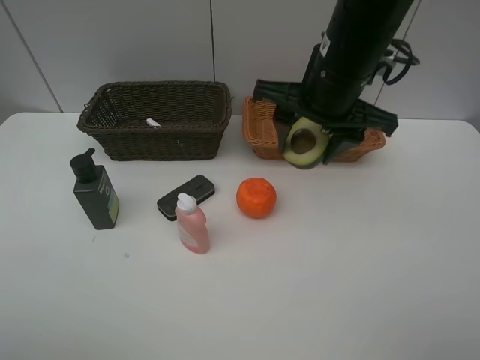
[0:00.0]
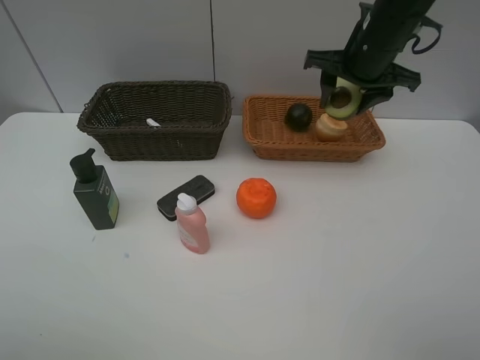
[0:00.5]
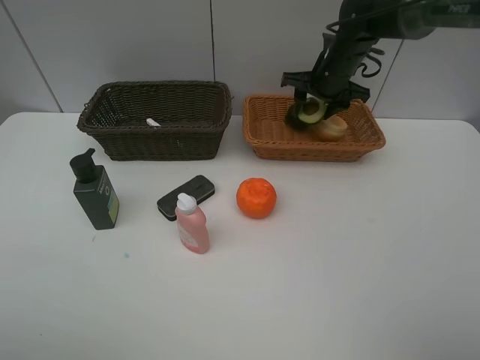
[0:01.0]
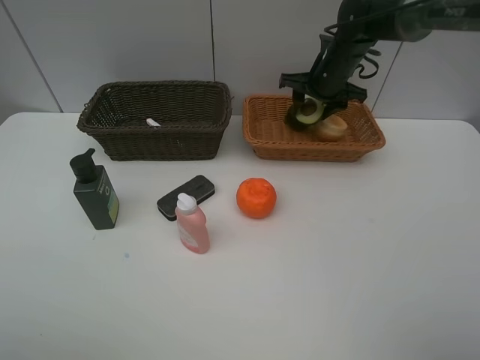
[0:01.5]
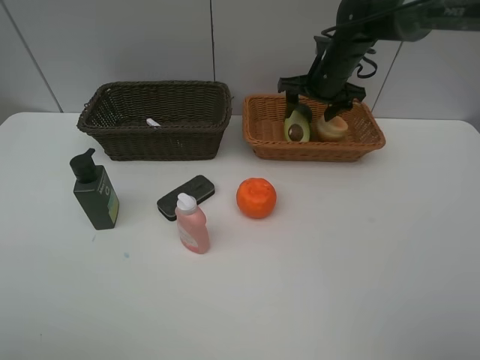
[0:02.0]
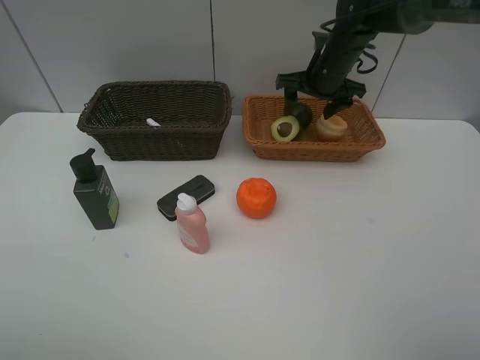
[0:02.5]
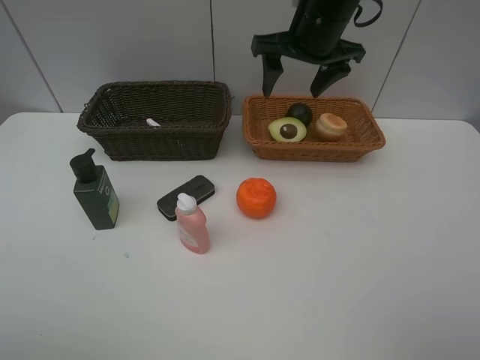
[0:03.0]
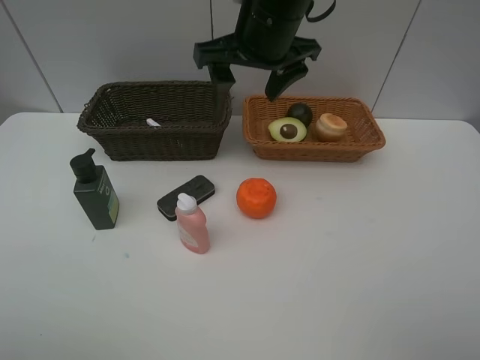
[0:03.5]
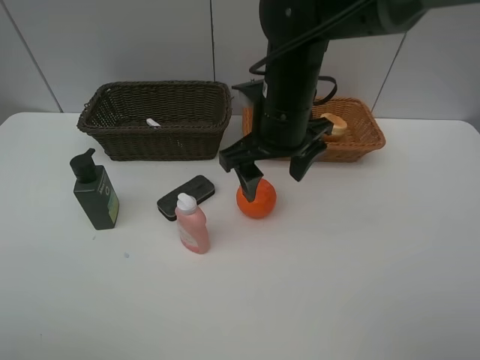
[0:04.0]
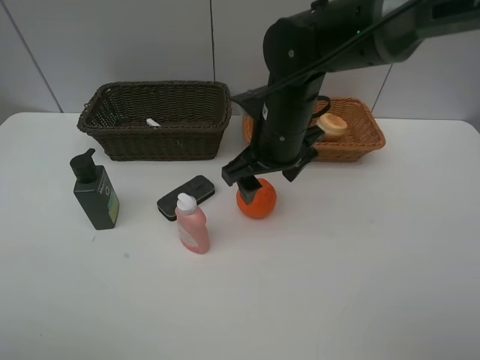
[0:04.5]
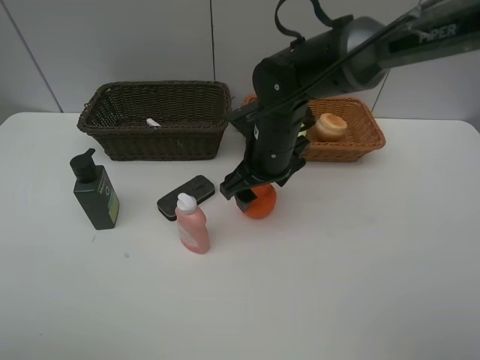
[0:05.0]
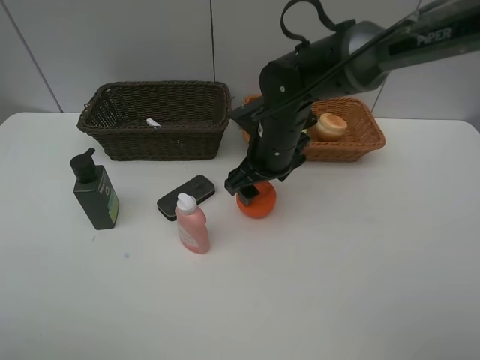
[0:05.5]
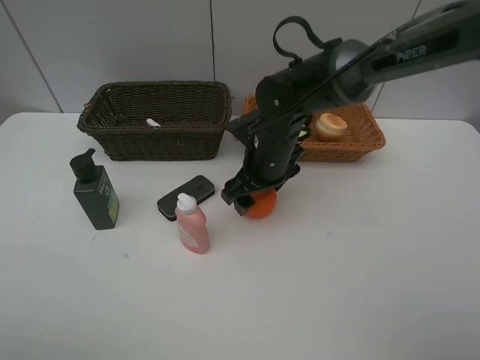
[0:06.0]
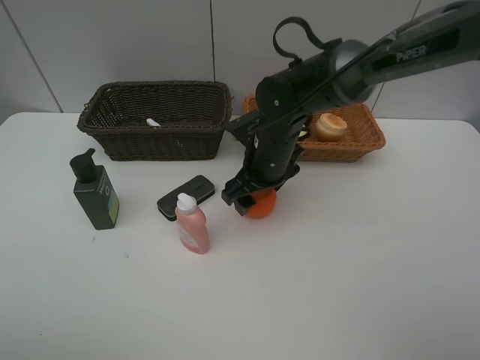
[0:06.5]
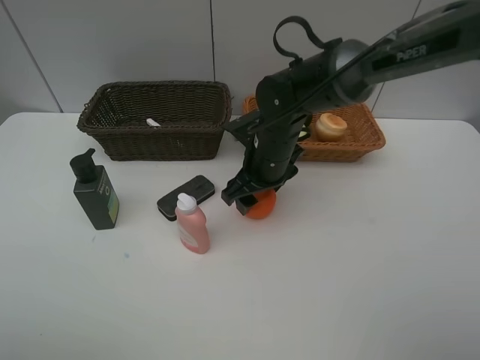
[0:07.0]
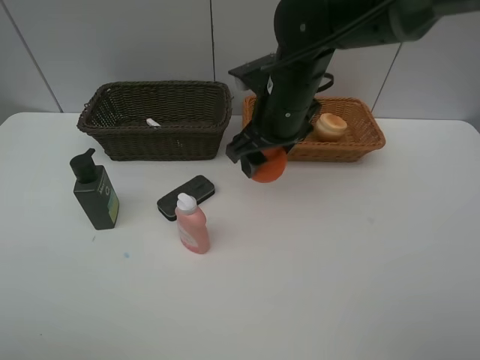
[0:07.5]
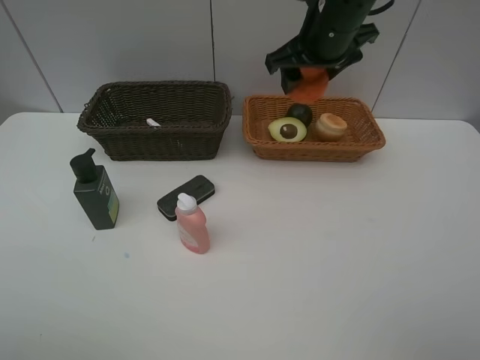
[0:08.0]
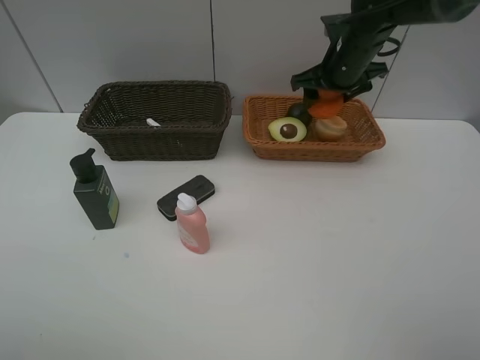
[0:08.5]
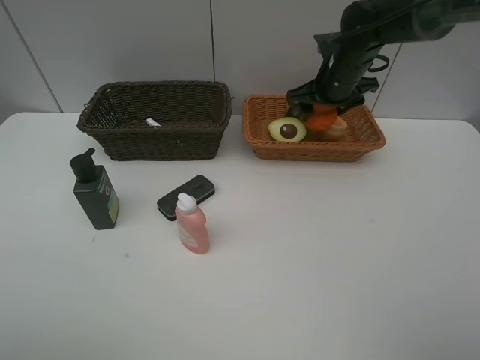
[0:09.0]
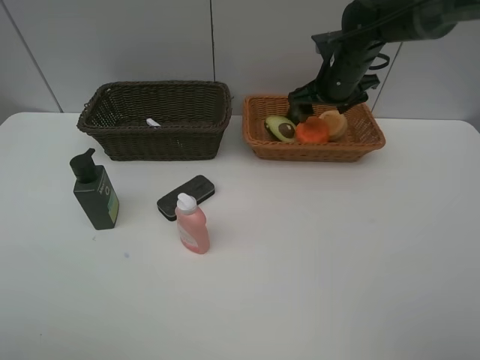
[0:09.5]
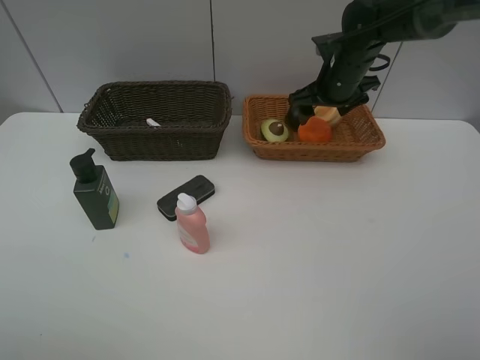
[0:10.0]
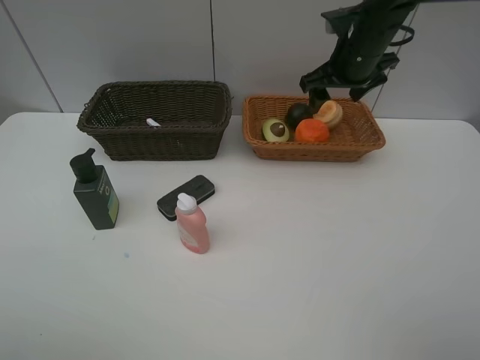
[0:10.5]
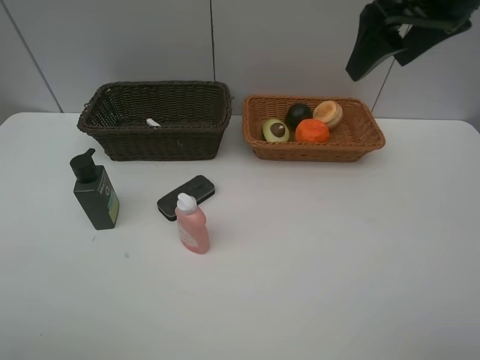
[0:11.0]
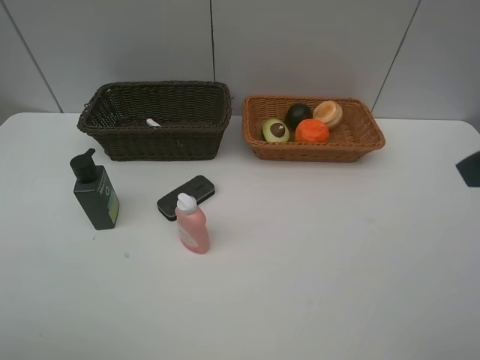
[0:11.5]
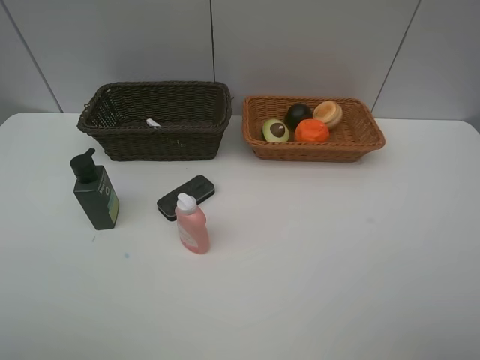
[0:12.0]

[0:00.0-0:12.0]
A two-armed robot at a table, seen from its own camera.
Task of the whole recording: Place multiple objects separately in different baskets.
Step, 0:00.0 to 0:02.5: Place the avocado in the light basket with right gripper.
Step, 0:03.0 to 0:07.0: Pick up the orange with right gripper.
Step, 0:07.5 to 0:09.5: Place the orange in the light basket with right gripper.
0:00.0 to 0:02.0: The right gripper shifts approximately 20 cm forward and downward.
0:02.0 to 0:04.0: The right gripper travels backward and to the left by about 20 cm.
0:04.0 to 0:06.0: The right gripper travels downward by approximately 10 cm.
0:06.0 to 0:08.0: The right gripper travels upward and to the right by about 20 cm.
0:08.0 to 0:10.0: The right gripper travels downward and forward by roughly 10 cm.
0:10.0 to 0:12.0: The right gripper heads backward, covering about 40 cm.

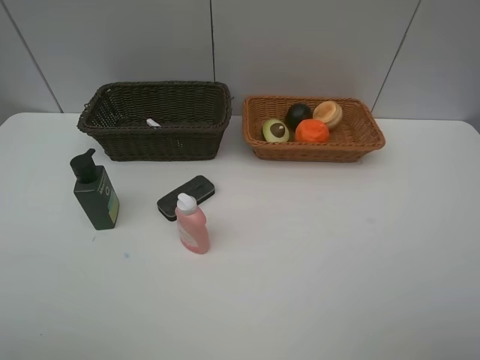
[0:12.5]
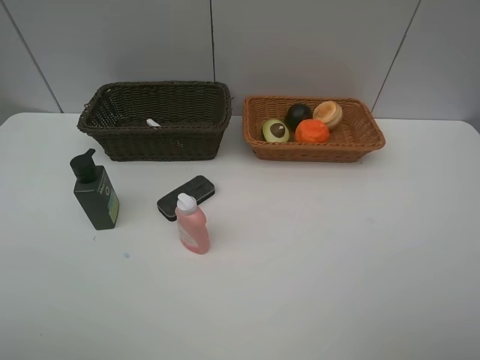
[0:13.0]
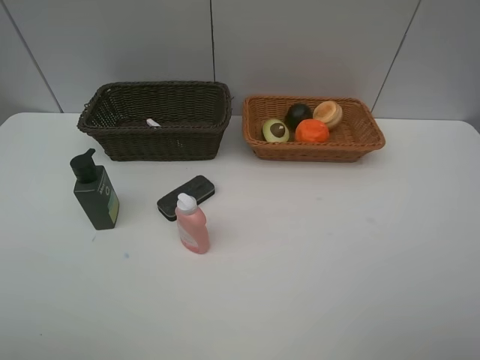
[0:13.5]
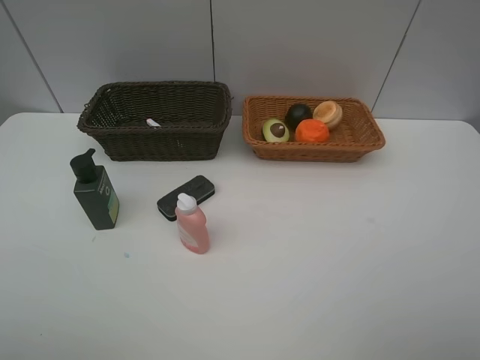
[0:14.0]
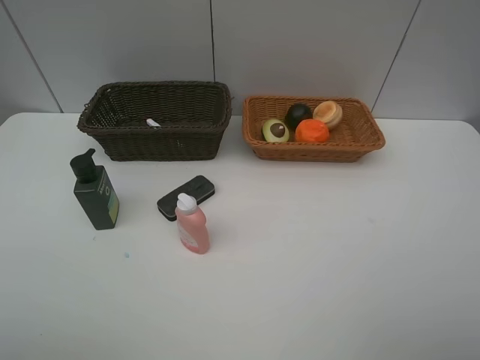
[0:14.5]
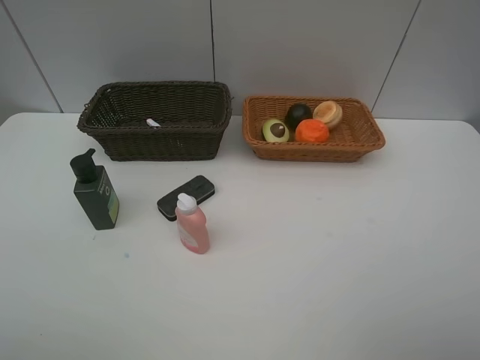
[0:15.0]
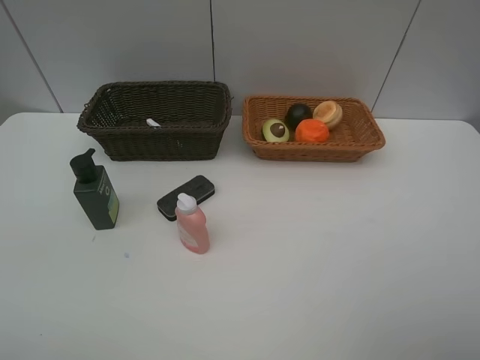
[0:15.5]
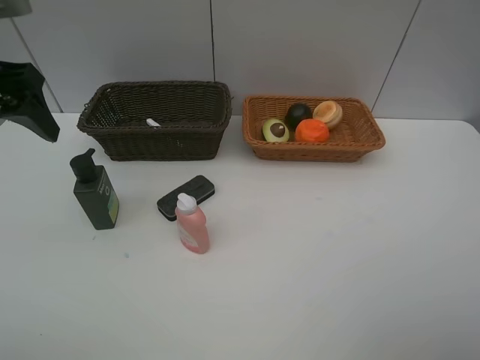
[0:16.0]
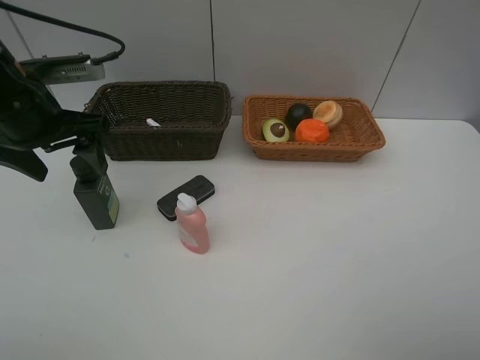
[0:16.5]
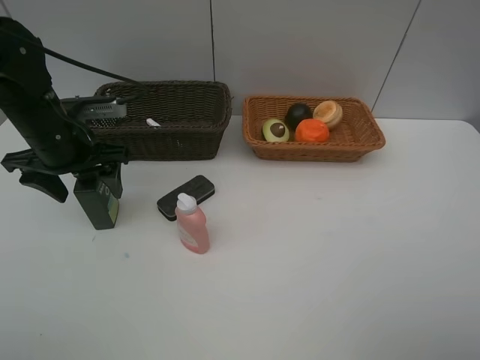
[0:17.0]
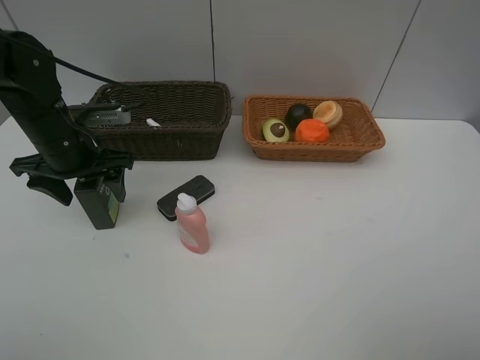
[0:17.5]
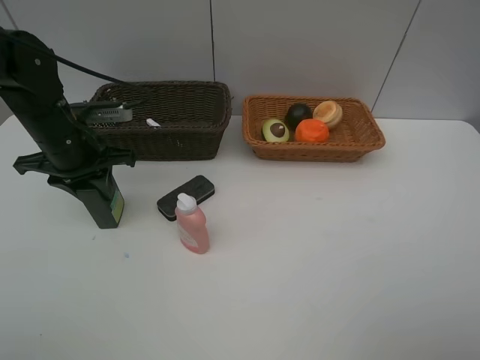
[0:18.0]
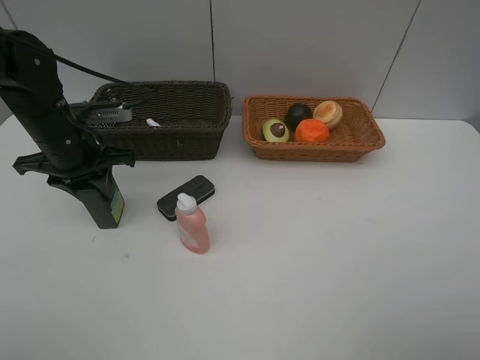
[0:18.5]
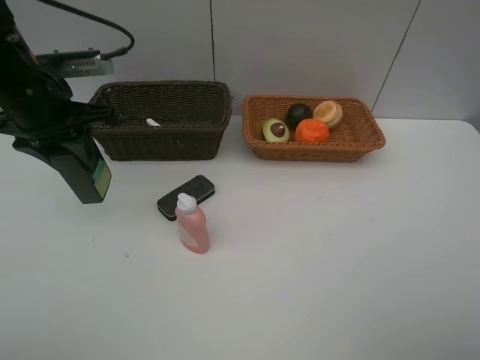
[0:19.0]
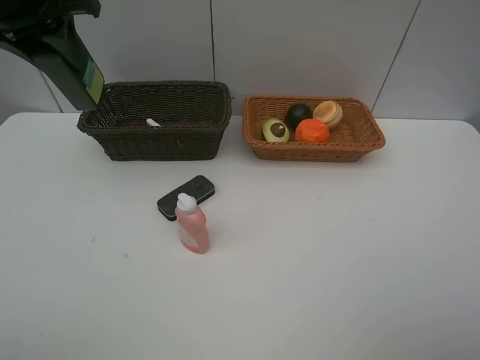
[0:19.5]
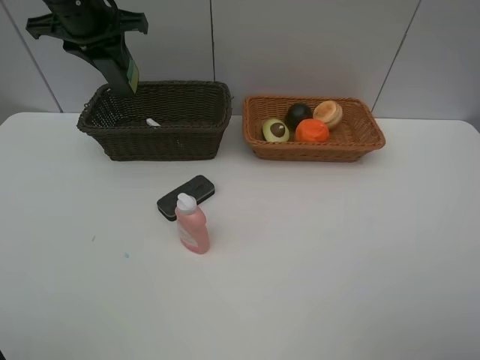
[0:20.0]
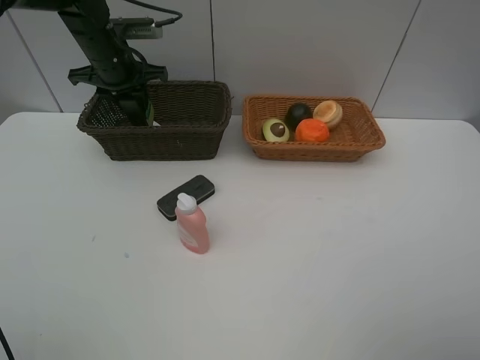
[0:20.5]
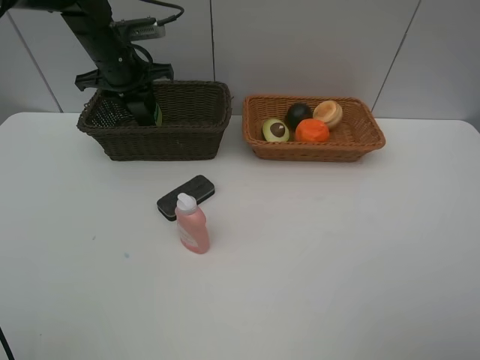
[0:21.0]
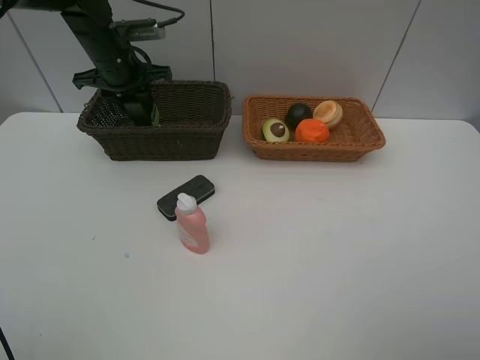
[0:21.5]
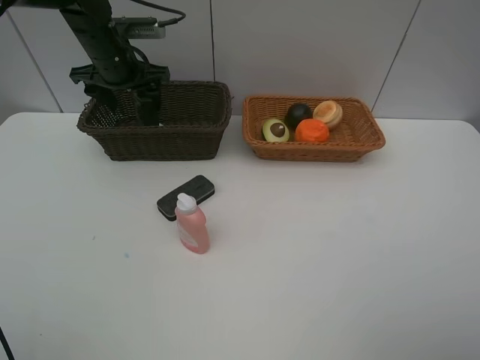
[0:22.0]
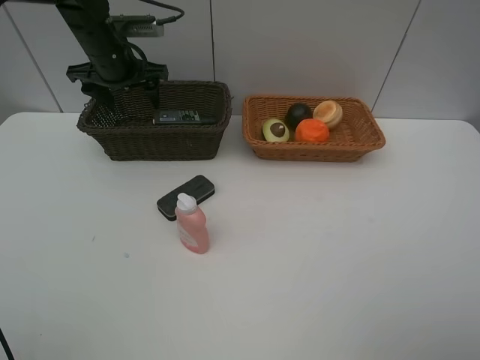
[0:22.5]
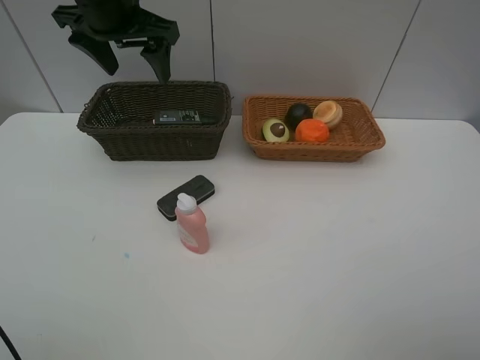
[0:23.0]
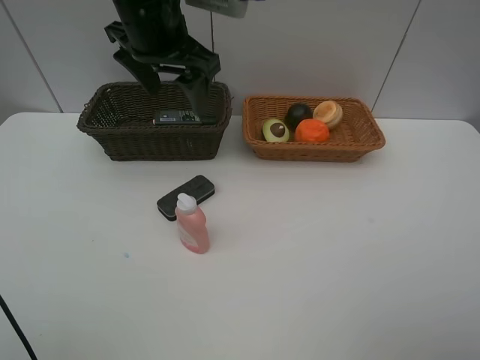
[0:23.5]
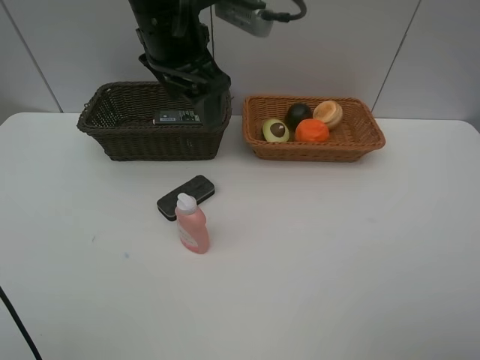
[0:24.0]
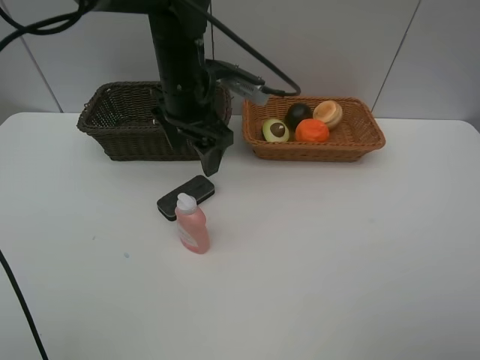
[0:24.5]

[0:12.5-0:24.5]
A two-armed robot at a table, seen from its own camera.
Task of the whole recording: Place multiple objects separately in different baskets.
Step, 0:12.5 to 0:18.5: Pick up the hard facial cleanser with left gripper.
Step, 0:19.0 to 0:22.5: Place the hard facial cleanser in the dark basket with left gripper.
0:14.5 to 0:16.5: The left gripper is displaced forward by about 30 cm.
0:16.5 to 0:18.5: The left gripper moves downward, roughly 5 cm, and closes its fingers.
0:18.5 to 0:20.5: The left gripper shifts about 15 cm forward, and reaches about 20 cm upward, then returns.
0:20.5 to 0:22.5: The left gripper opens.
0:22.5 to 0:24.5: The left gripper is displaced to the right and backward by roughly 20 cm.

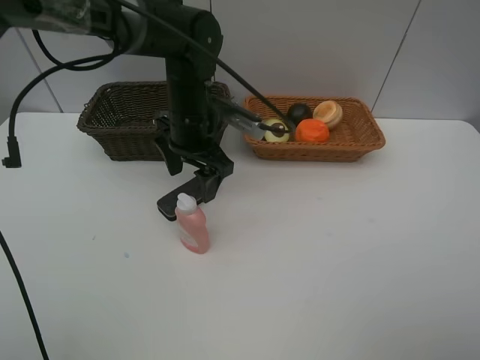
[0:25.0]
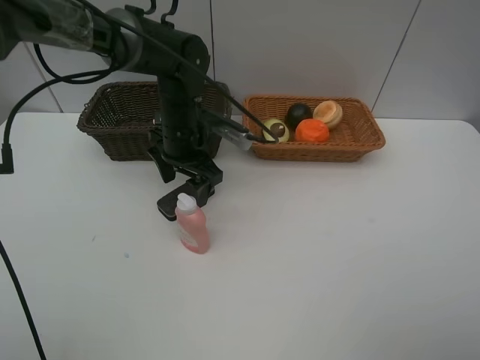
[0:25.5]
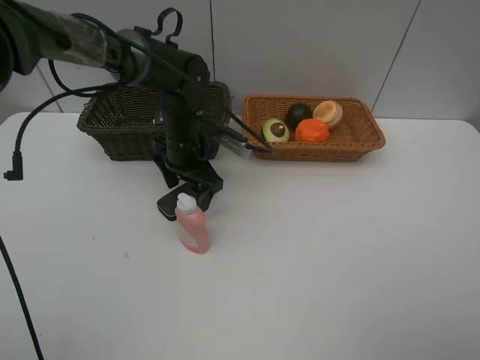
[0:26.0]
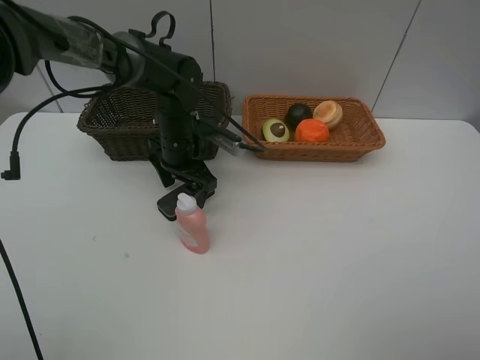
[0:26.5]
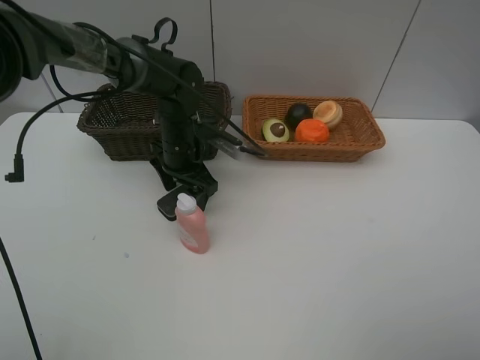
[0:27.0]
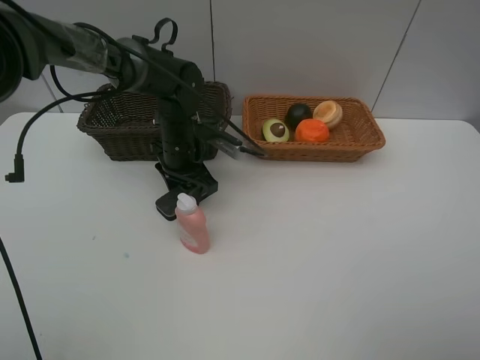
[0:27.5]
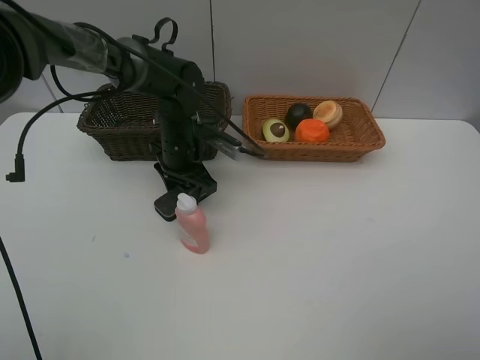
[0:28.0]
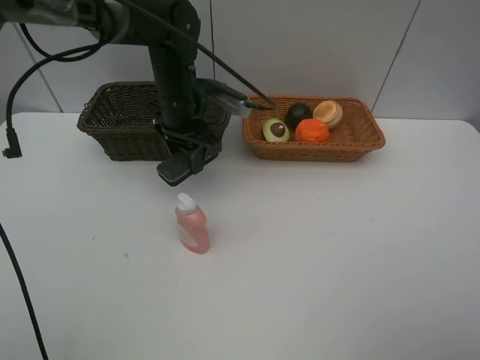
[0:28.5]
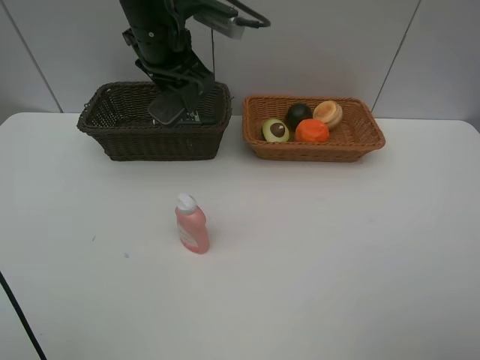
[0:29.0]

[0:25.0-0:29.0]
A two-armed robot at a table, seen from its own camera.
Task of the whole recording: Place multiple objects separately in different baskets.
Step, 0:25.0 to 0:28.0: Pick up blackboard eraser with left gripper.
0:25.0 to 0:27.0: The left gripper shifts approximately 5 cm downward.
0:27.0 to 0:29.0: The left gripper is displaced upward by some 20 cm, and closes its fingers.
